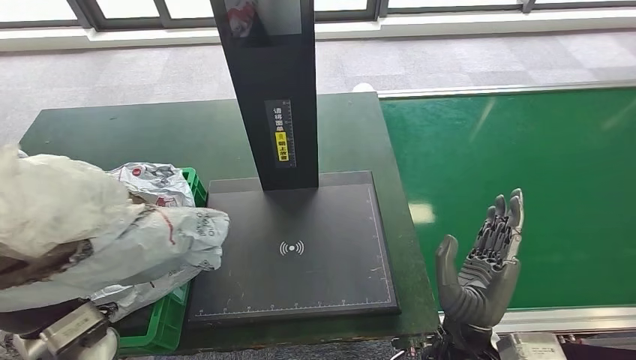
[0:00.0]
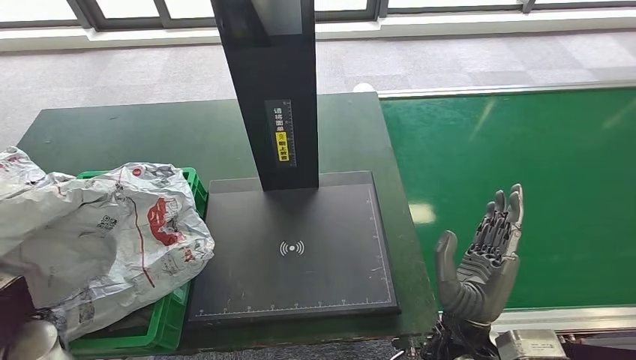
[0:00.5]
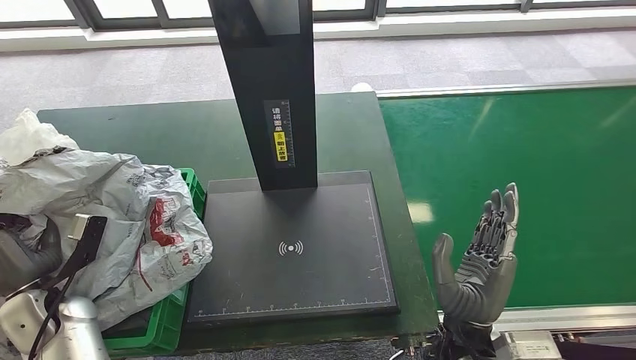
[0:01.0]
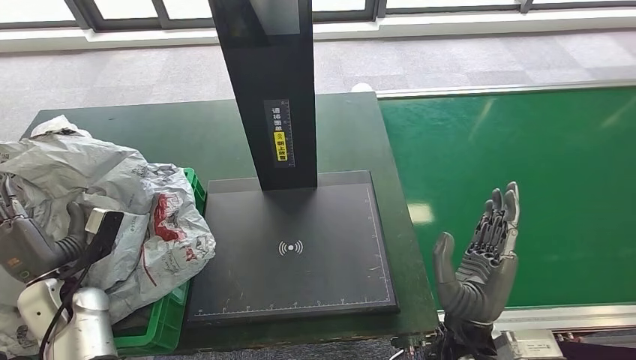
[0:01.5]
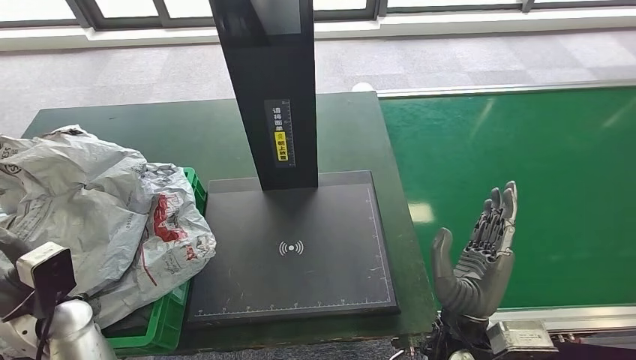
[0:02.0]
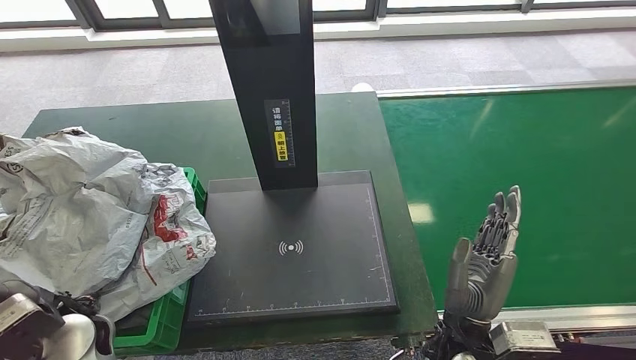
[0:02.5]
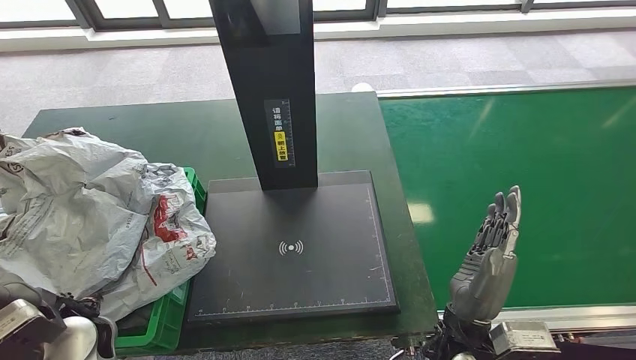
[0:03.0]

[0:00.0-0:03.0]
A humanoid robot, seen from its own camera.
Step, 0:00.0 to 0:03.0: Place the parcel into the delivery box.
0:00.0 to 0:01.5: The left hand moves to the left, downward and forward, about 15 cm.
0:01.5 to 0:03.0: The left hand is displaced to the right and upward by about 15 cm.

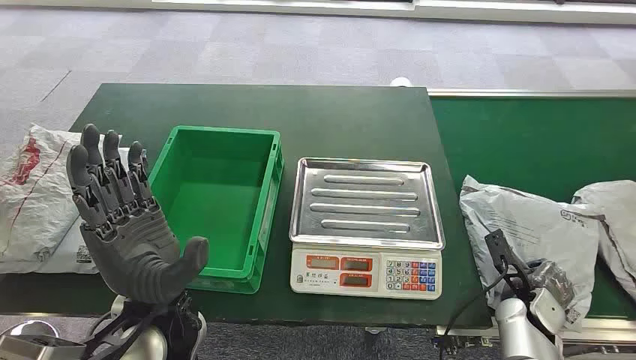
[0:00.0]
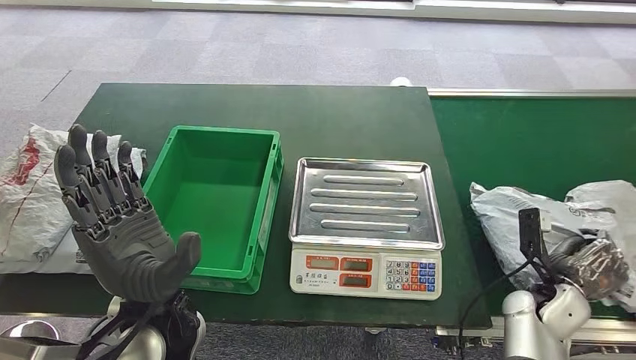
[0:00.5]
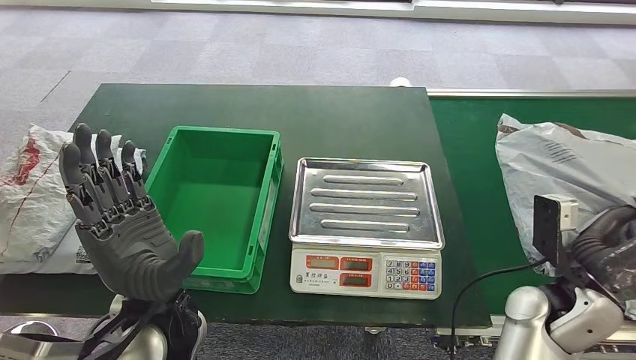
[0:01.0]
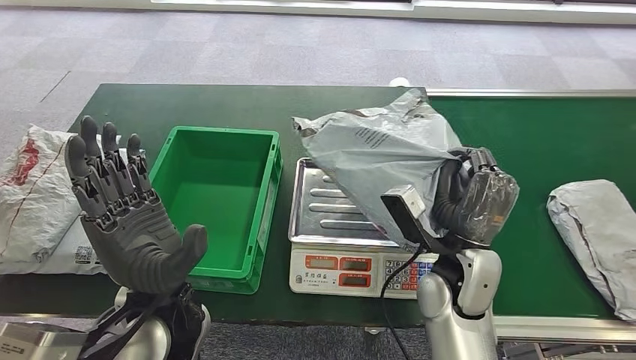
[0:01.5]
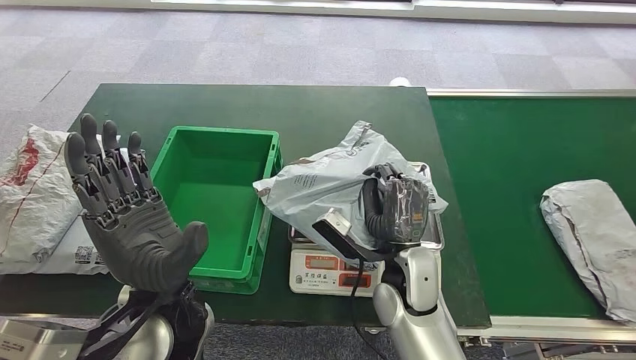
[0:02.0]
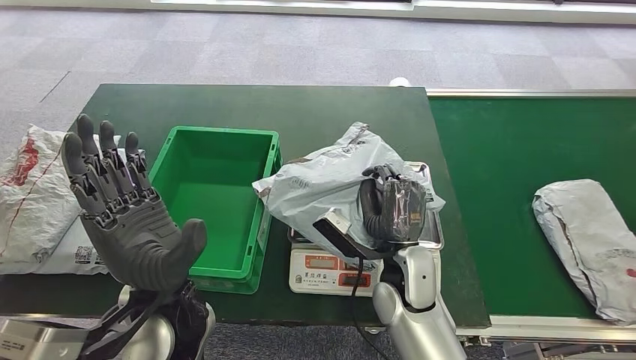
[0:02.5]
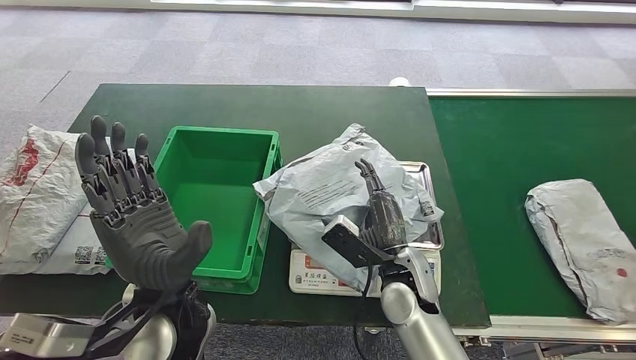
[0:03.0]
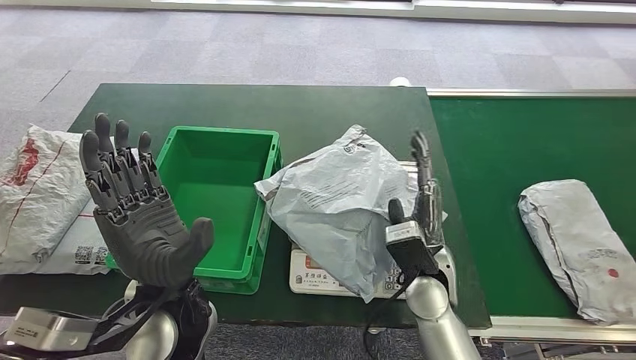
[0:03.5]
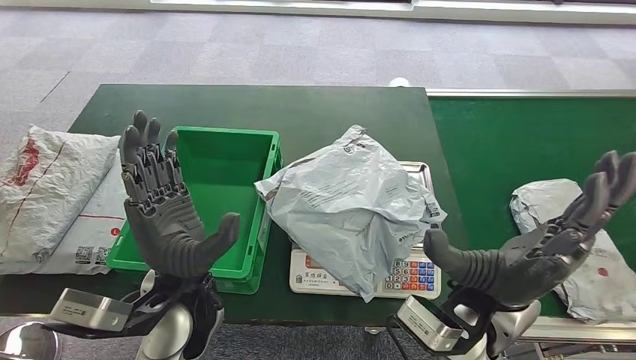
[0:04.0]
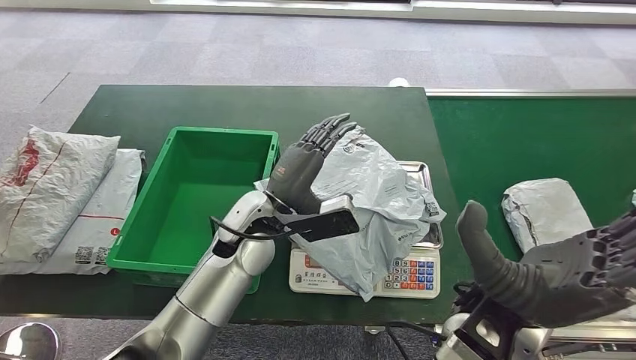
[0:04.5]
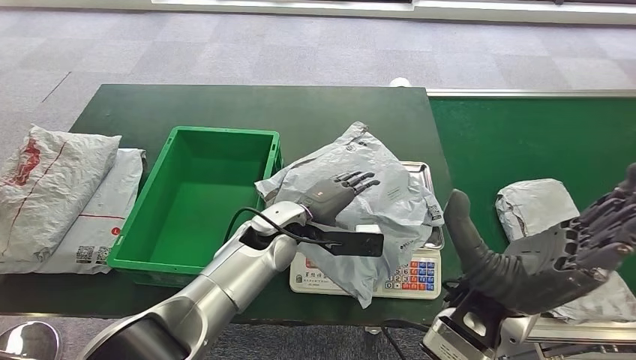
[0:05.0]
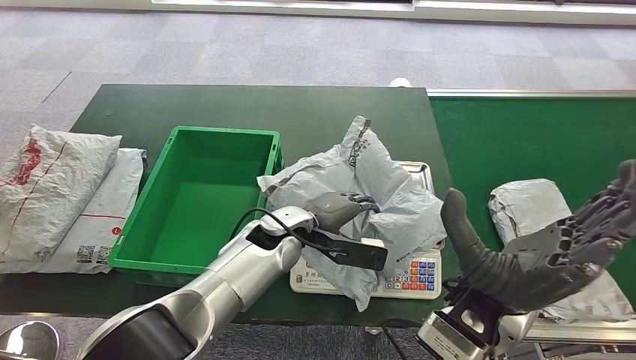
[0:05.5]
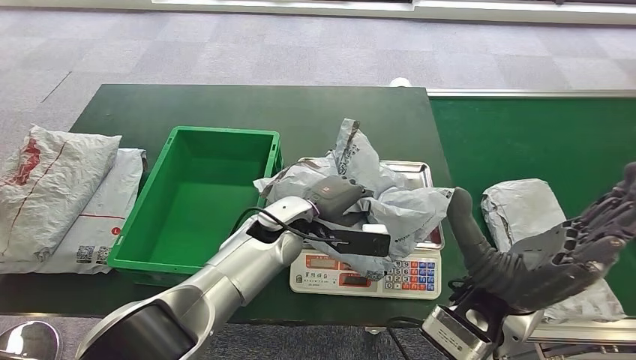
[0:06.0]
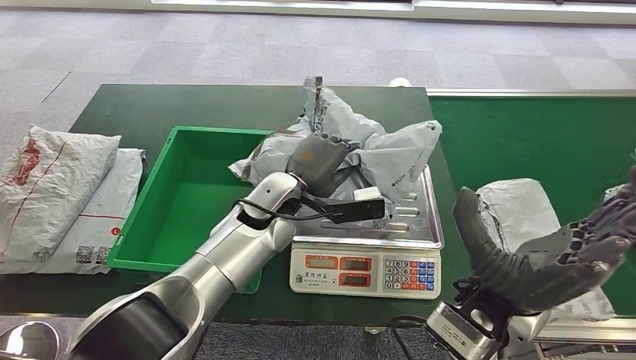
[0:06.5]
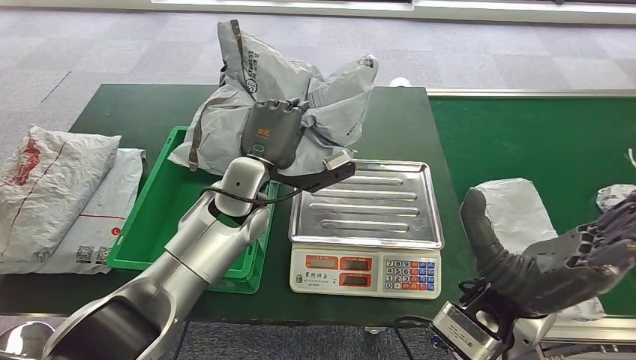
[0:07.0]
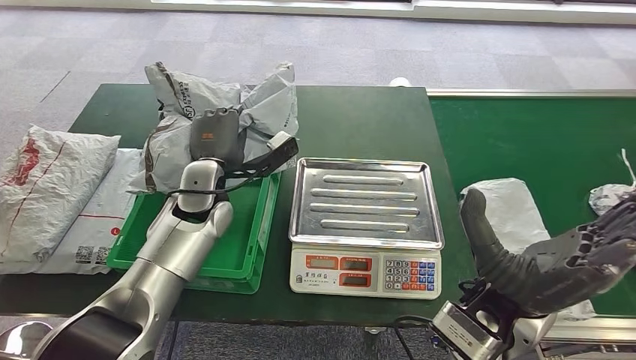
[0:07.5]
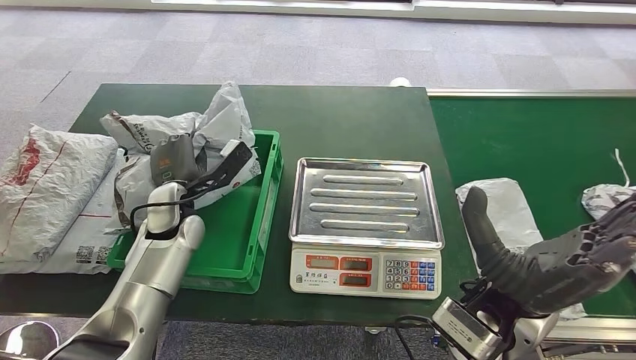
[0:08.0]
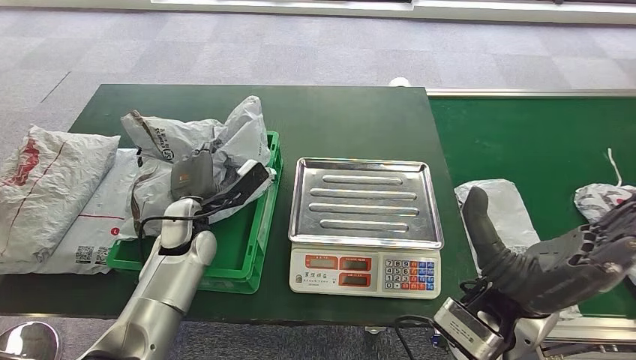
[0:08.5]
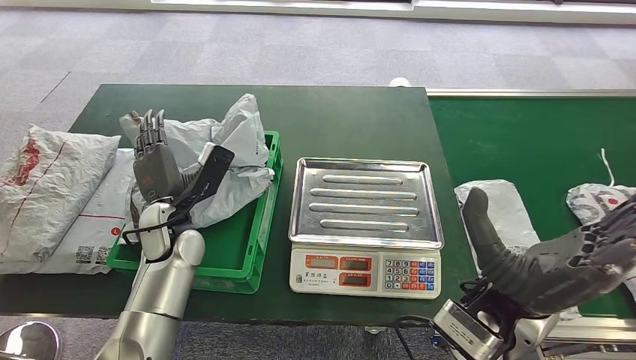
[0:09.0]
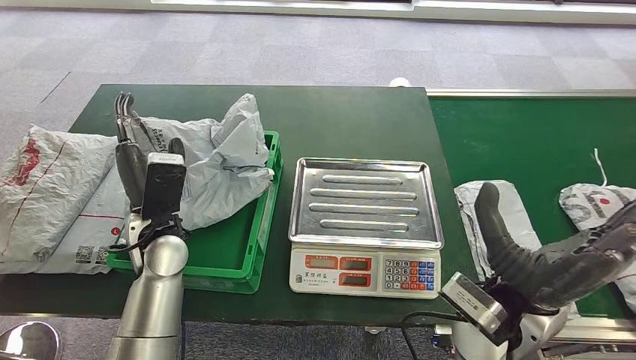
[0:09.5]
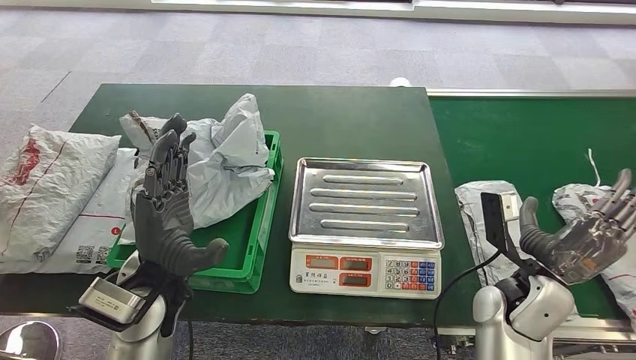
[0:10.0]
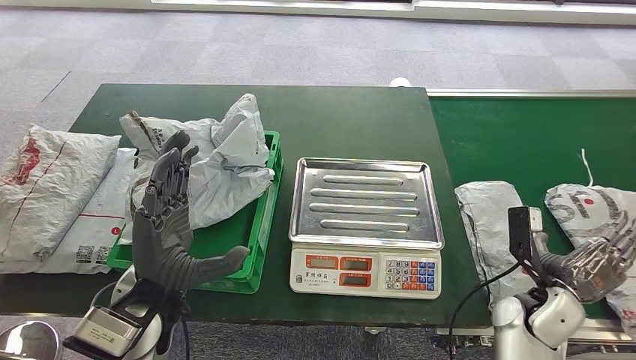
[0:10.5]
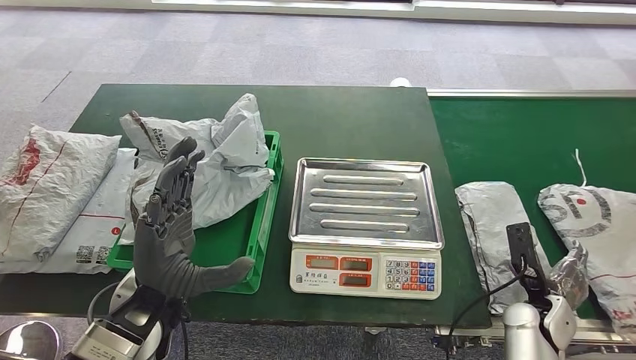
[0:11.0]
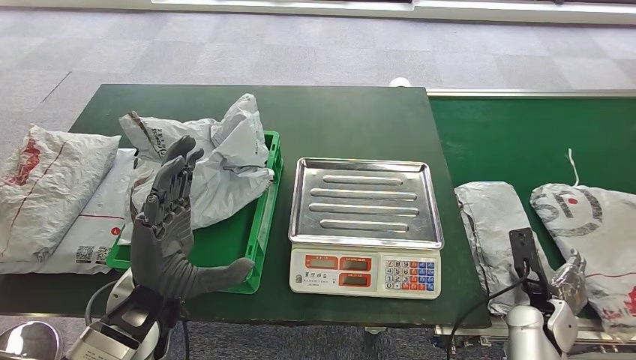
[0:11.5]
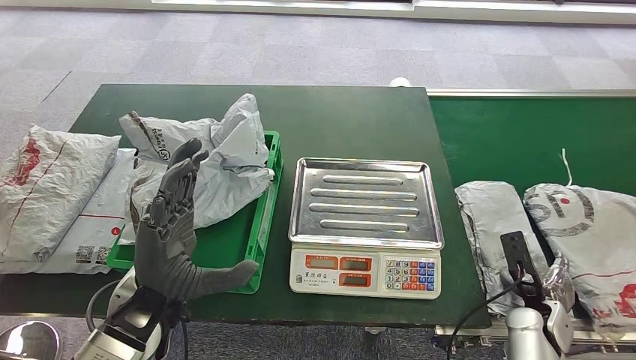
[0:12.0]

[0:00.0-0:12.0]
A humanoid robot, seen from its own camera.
Step, 0:00.0 to 0:01.0: Take the parcel off the conveyor belt.
Step, 0:01.5 to 0:02.5: Place the parcel onto the inbound machine.
Step, 0:05.0 to 0:06.5: Pick up the parcel from the inbound machine.
Step, 0:07.0 to 0:10.0: Put the parcel inside the courier box.
0:10.0 to 0:12.0: The right hand moves downward and to the right, approximately 15 cm.

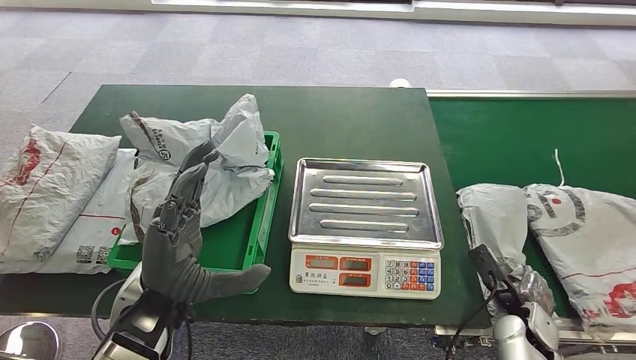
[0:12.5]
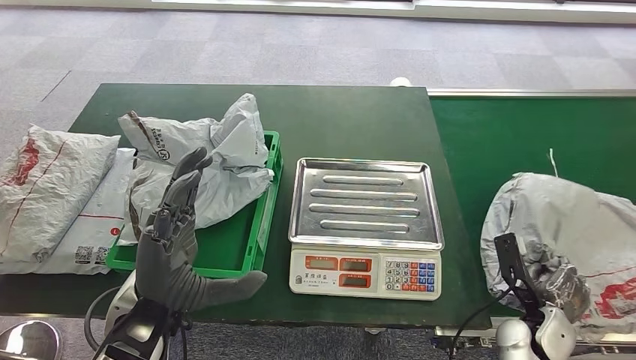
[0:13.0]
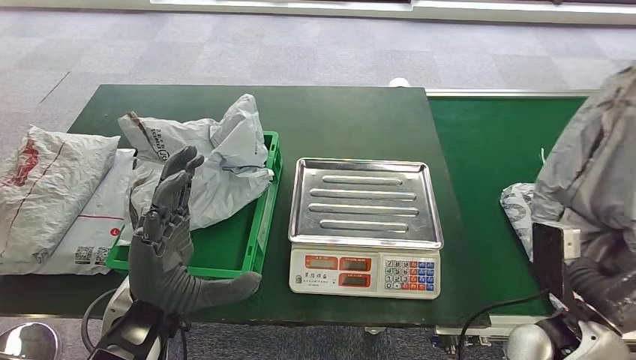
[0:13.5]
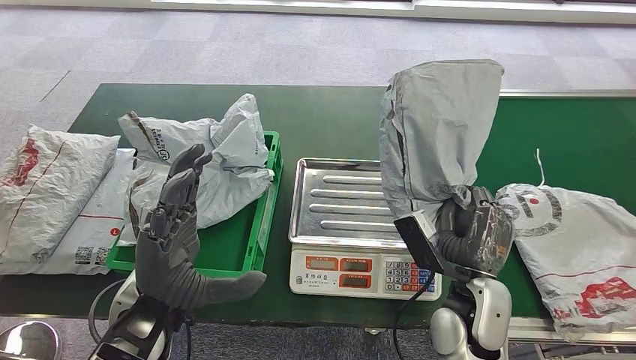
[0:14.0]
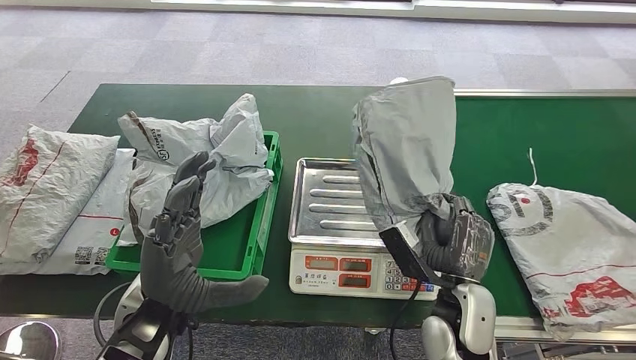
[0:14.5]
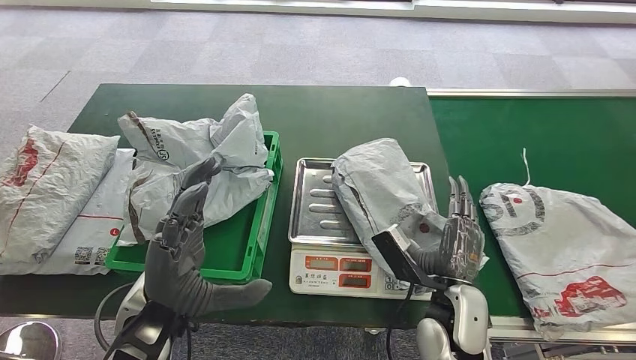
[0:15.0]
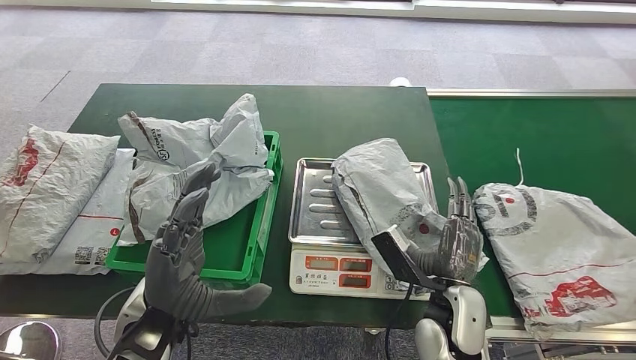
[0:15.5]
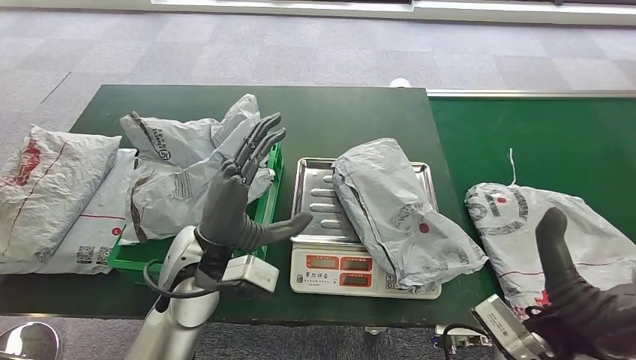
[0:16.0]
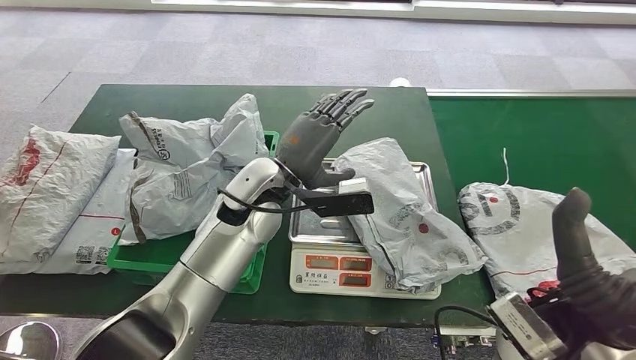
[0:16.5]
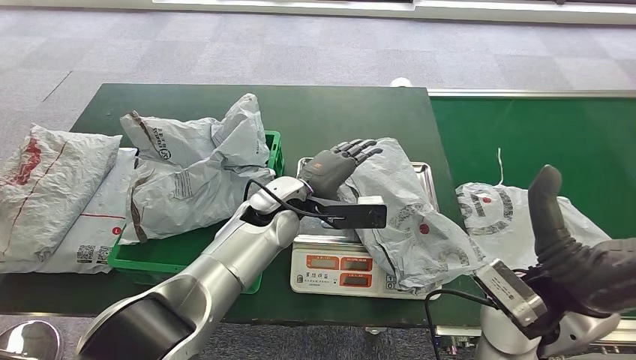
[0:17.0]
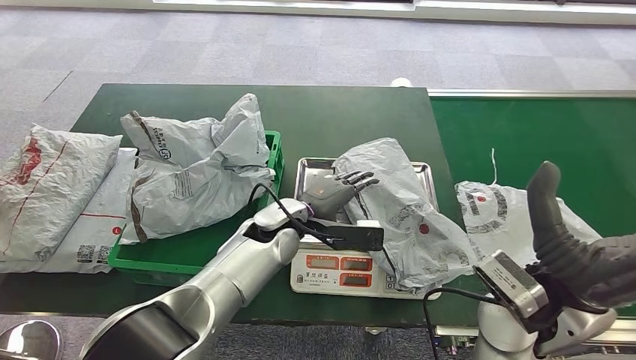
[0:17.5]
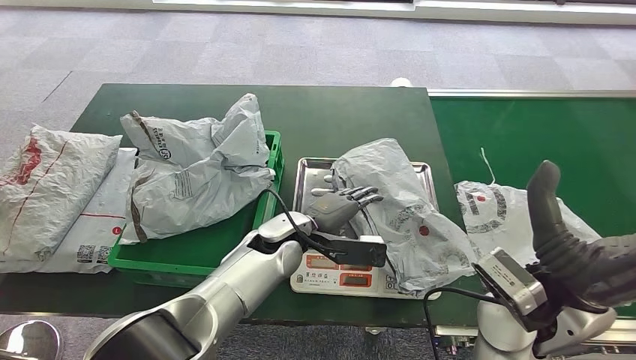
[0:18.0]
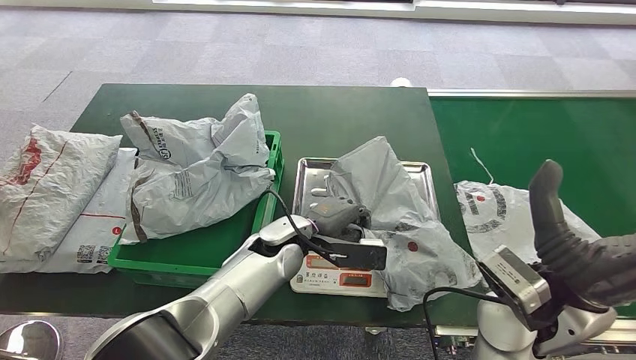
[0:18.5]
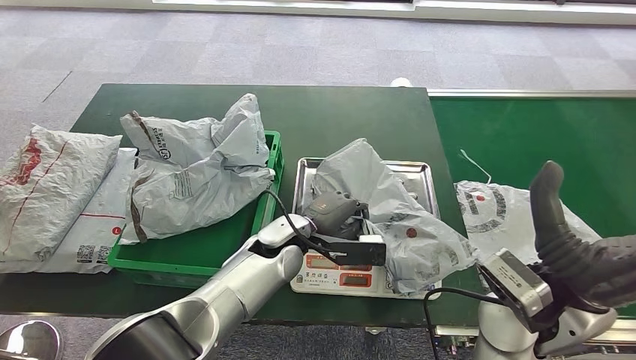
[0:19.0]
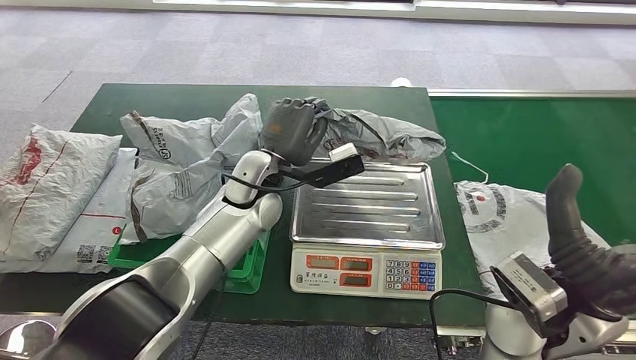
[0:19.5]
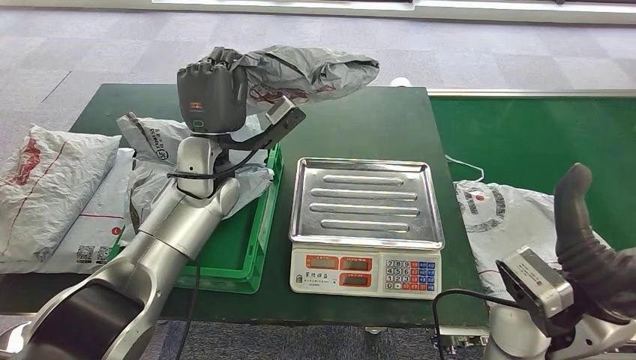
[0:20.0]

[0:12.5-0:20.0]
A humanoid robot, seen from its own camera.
Step, 0:13.0 to 0:13.5: Pick up the parcel from the conveyor belt.
Step, 0:14.0 to 0:16.0: Place the parcel onto the inbound machine.
Step, 0:19.0 to 0:19.5: Pick up the parcel from the inbound machine.
